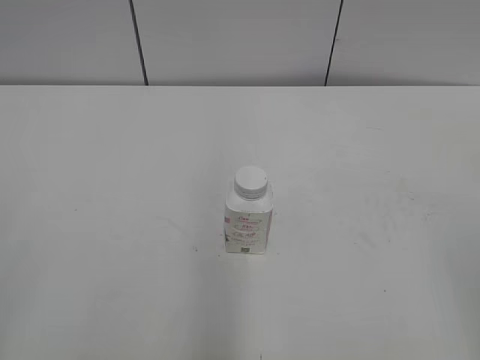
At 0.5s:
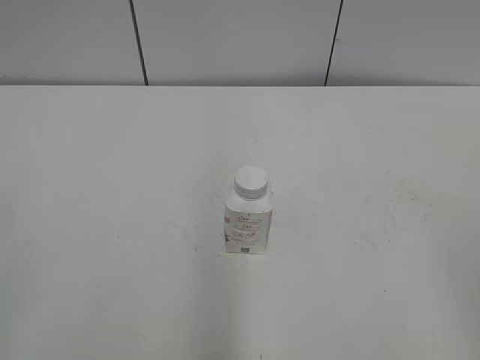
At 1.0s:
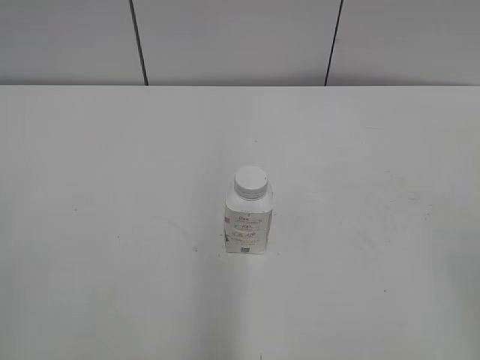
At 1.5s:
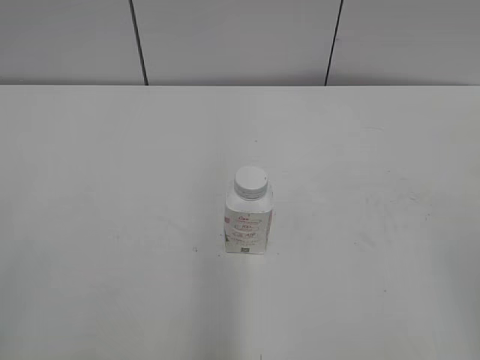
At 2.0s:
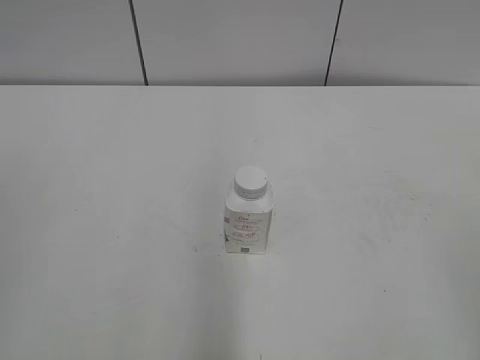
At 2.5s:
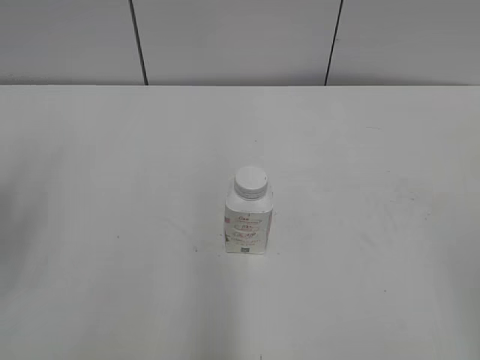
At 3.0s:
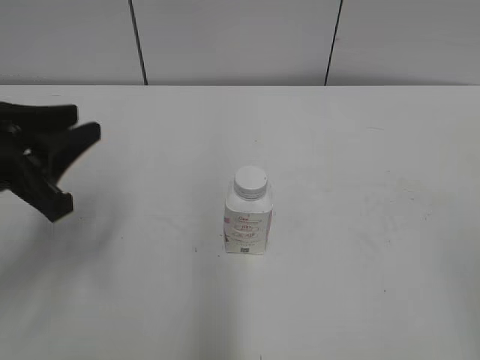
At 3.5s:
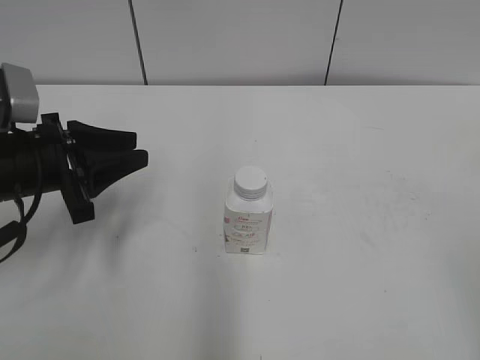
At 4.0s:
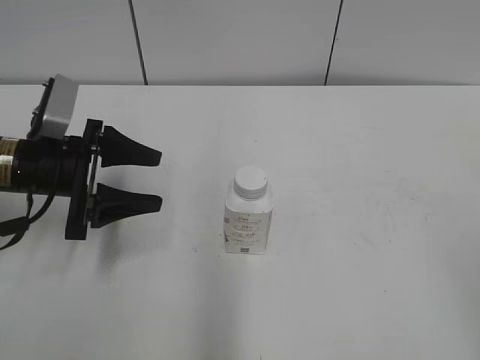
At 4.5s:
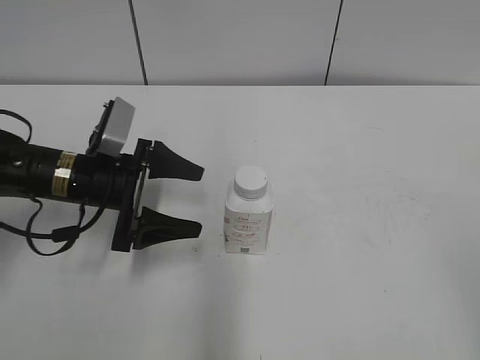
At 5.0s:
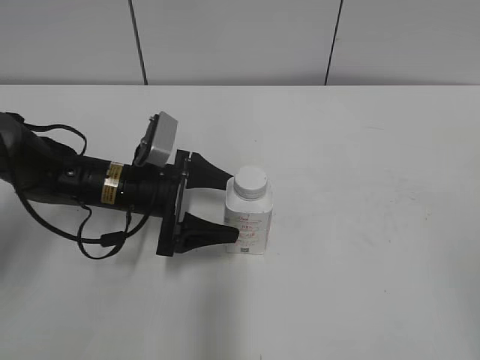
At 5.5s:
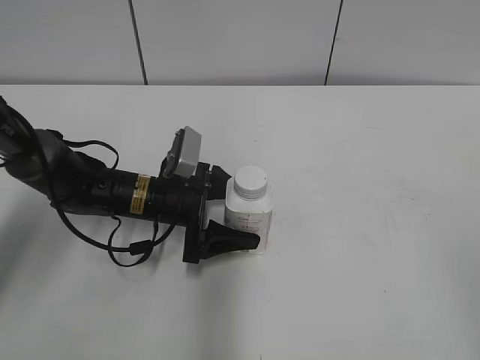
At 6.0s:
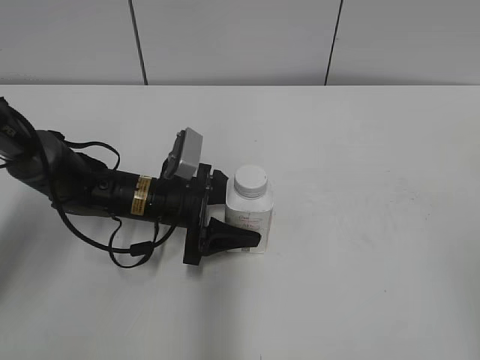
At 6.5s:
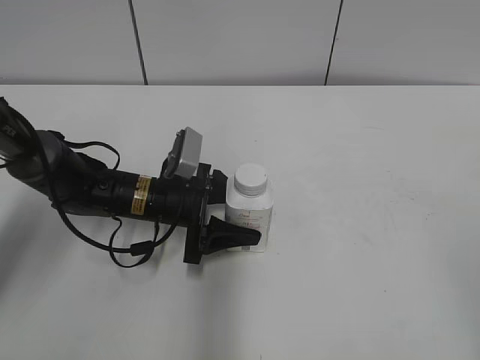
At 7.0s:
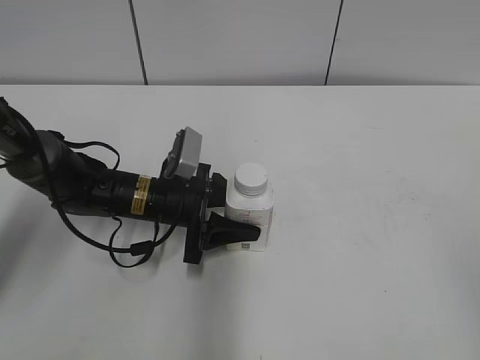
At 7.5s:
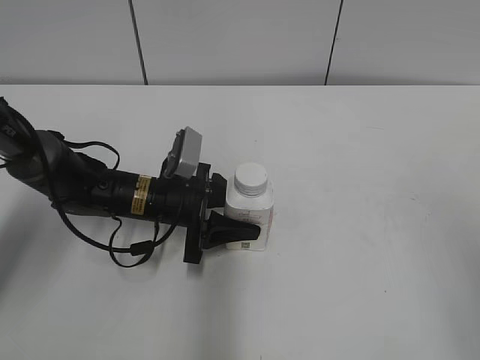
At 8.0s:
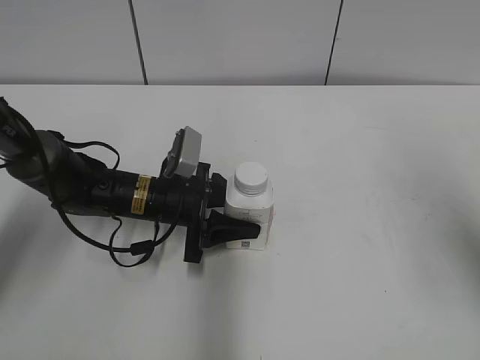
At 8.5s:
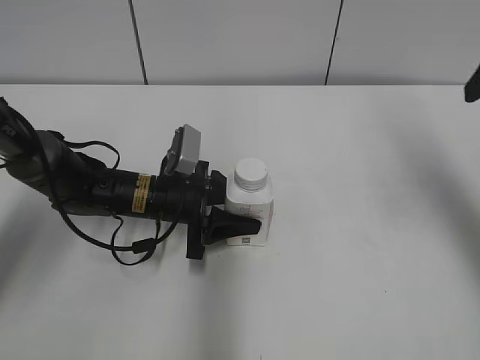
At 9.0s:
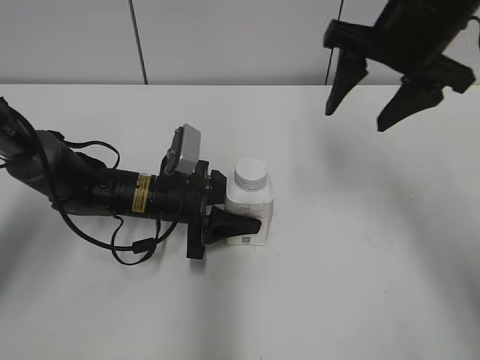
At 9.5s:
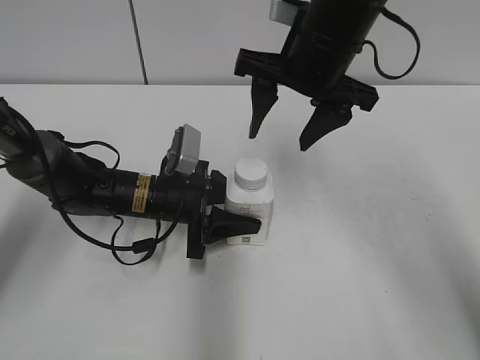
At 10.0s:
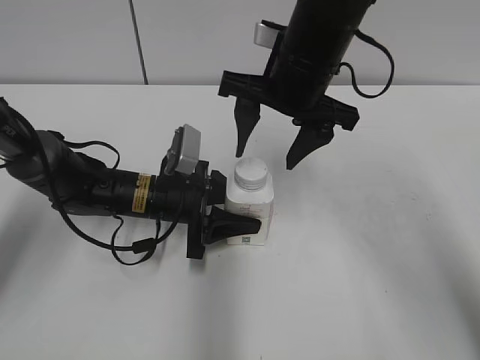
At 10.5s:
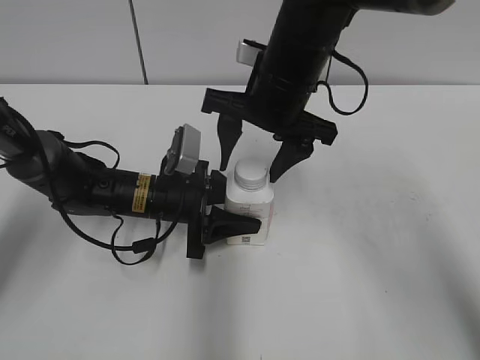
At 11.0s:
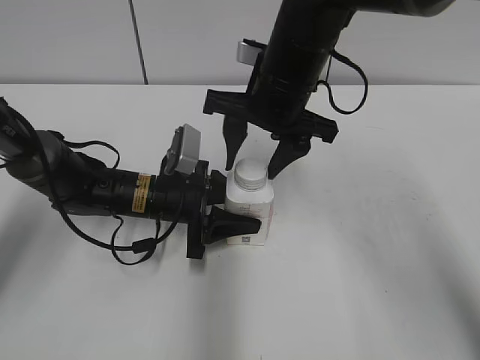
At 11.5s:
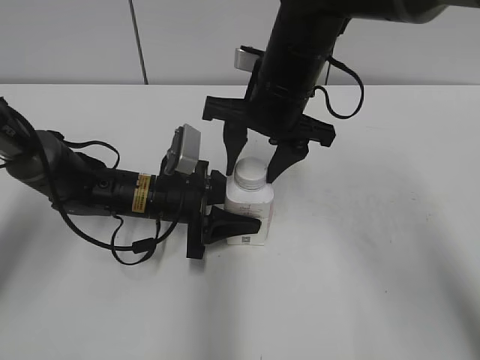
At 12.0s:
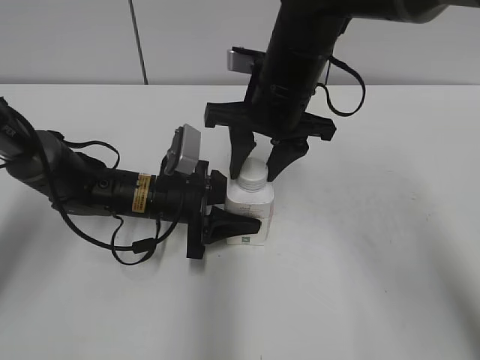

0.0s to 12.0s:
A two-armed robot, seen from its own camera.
Step, 0.0s to 8.0s: Grasp the bottle and move it to the center of the table with the left gripper.
2.0s to 4.0s: The left gripper heads forward and downward, covering some 35 cm, and opens its fingers.
4.0s to 6.0s: The left gripper travels to the right and downward by some 15 cm.
6.0s to 8.0s: The right gripper heads forward, covering about 20 cm.
8.0s to 10.0s: The right gripper moves to the left and forward, approximately 25 cm.
10.0s to 12.0s: The right gripper closes up.

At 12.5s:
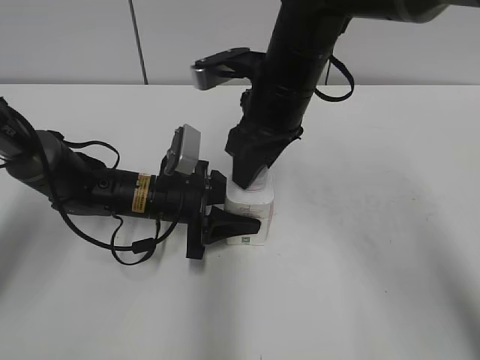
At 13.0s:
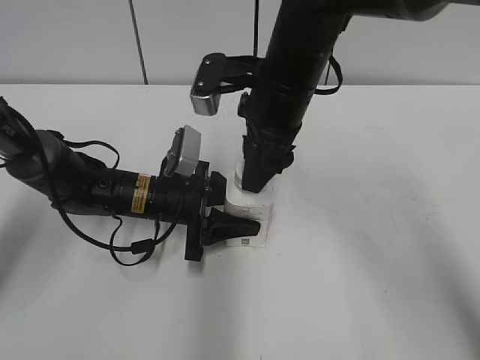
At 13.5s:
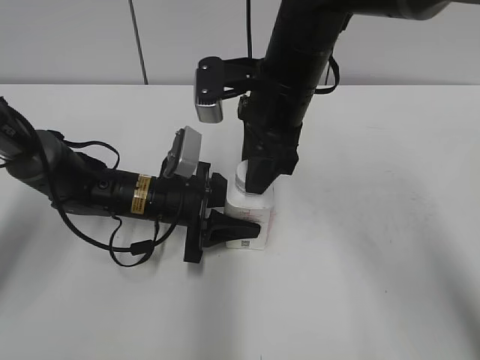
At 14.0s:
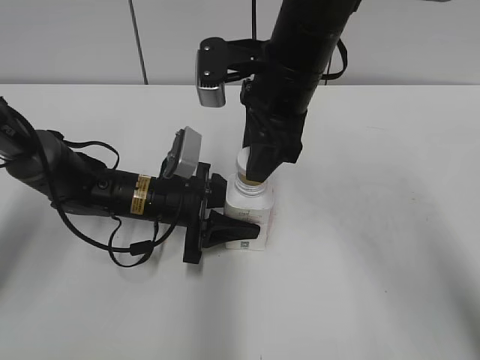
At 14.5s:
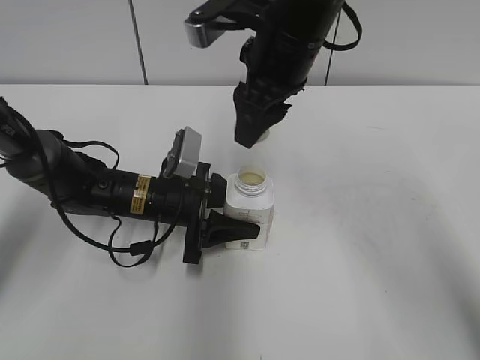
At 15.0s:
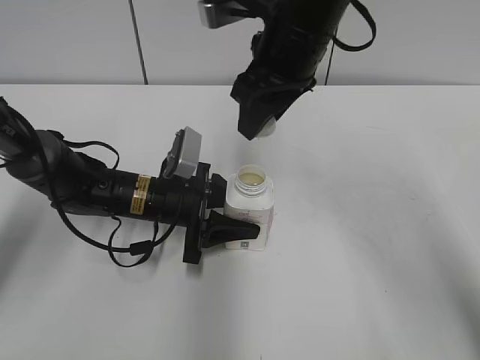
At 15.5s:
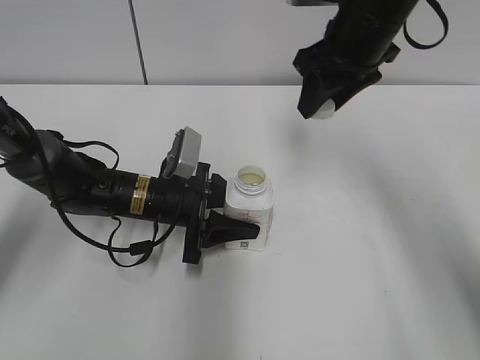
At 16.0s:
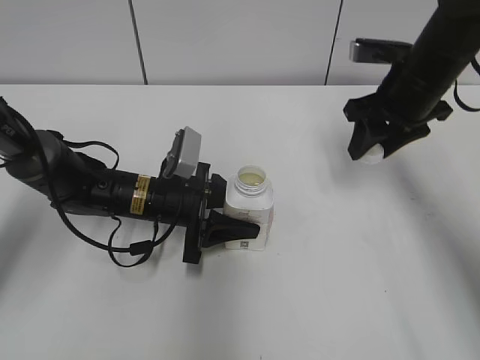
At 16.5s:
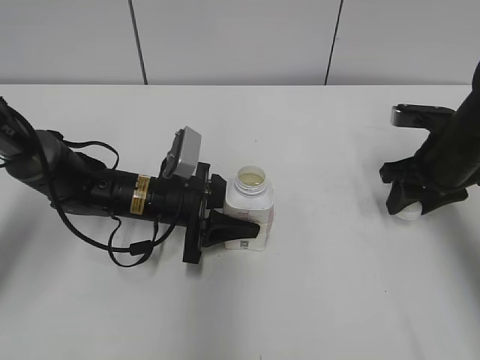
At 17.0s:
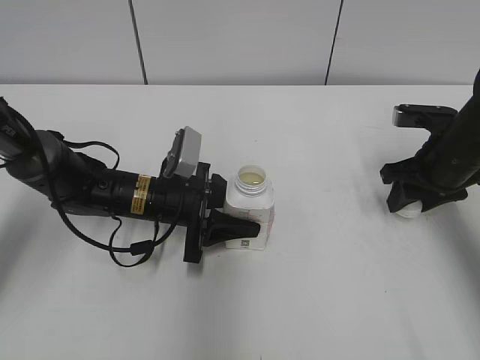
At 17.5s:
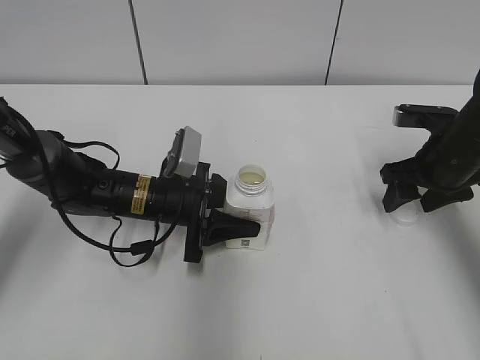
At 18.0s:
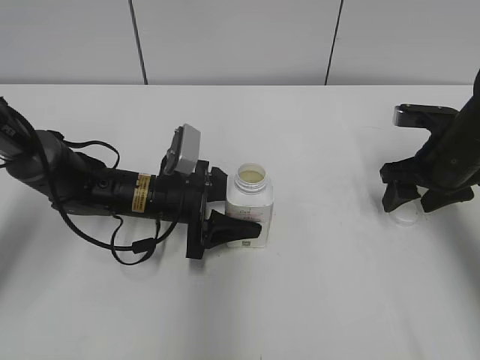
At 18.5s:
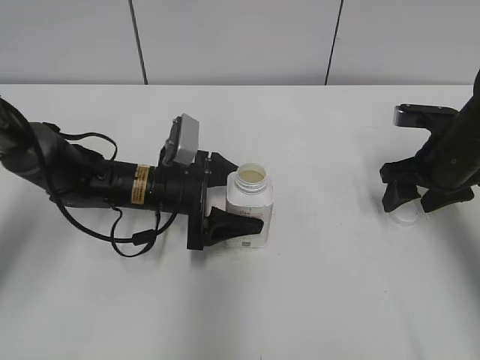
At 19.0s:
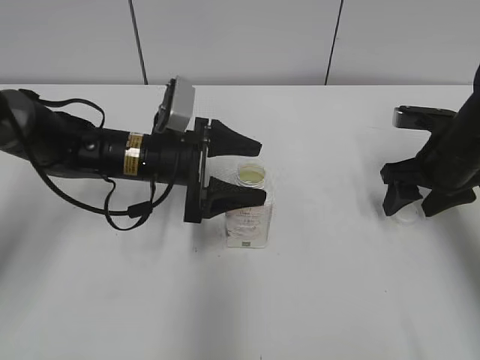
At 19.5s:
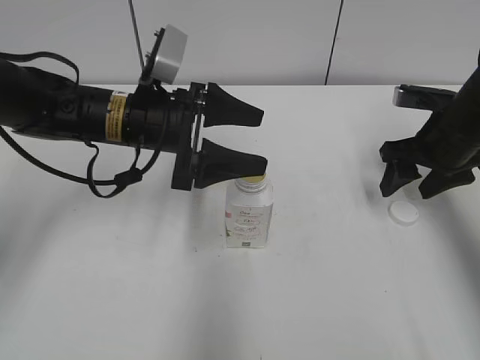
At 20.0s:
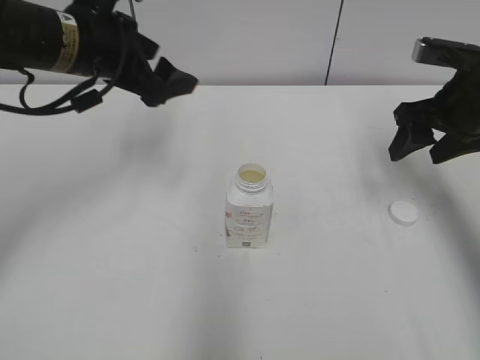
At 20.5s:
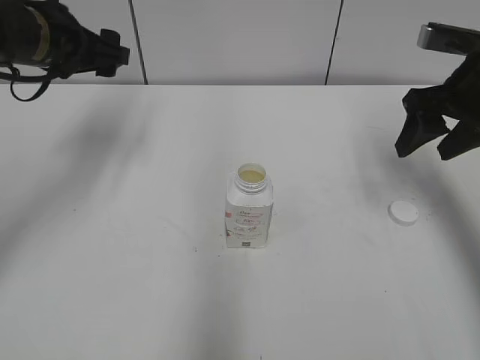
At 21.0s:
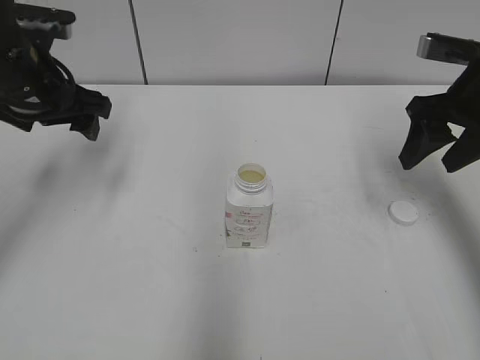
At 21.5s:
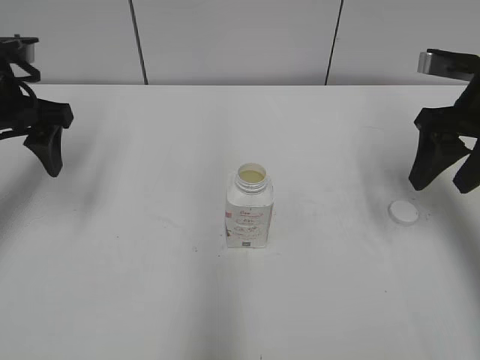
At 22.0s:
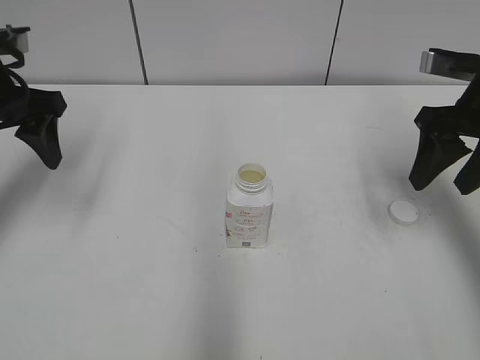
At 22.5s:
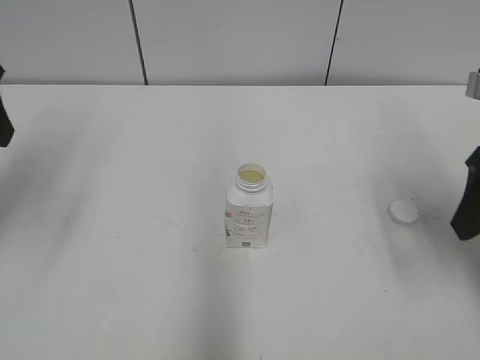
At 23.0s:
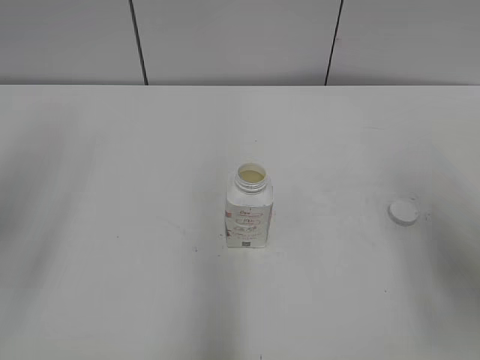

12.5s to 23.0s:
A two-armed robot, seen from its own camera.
Step, 14.5s to 17.0s: Place the bottle cap on the table with the right gripper.
Step, 17.5s to 18.5s: Place the bottle on the table with the left gripper.
14.5s to 16.5s: The right gripper moves to the right and downward, about 25 cm.
16.5s to 19.0s: The right gripper opens up, while the left gripper travels upward by roughly 5 cm, and opens its fingers.
19.0s to 21.0s: The right gripper goes roughly 10 cm upward. Meanwhile the left gripper heads upward and to the left, covering about 20 cm.
21.0s to 23.0s: The left gripper heads backward and upward, covering roughly 20 cm, while the right gripper shifts some 20 cm backward.

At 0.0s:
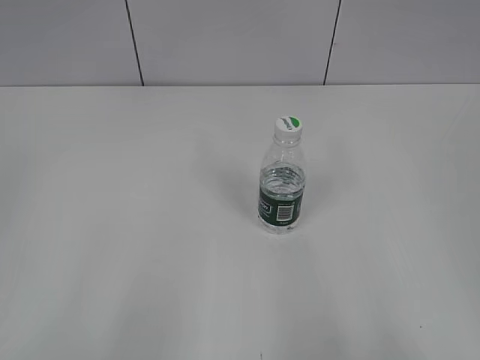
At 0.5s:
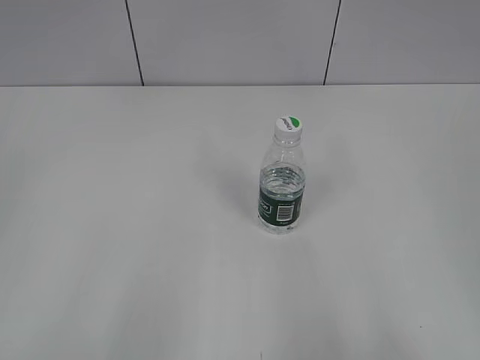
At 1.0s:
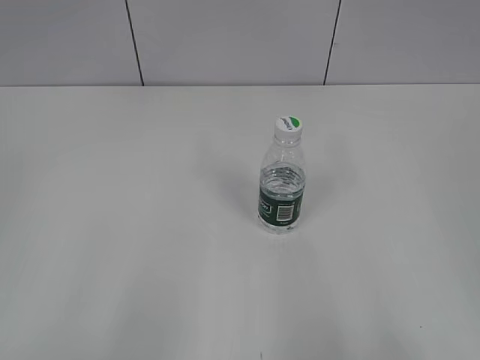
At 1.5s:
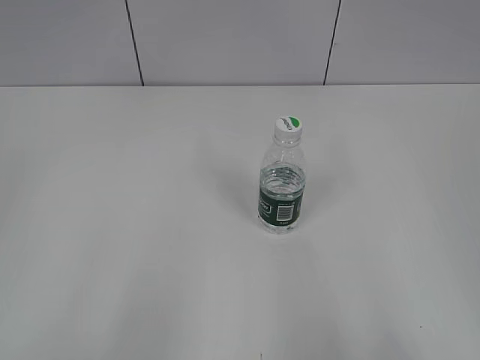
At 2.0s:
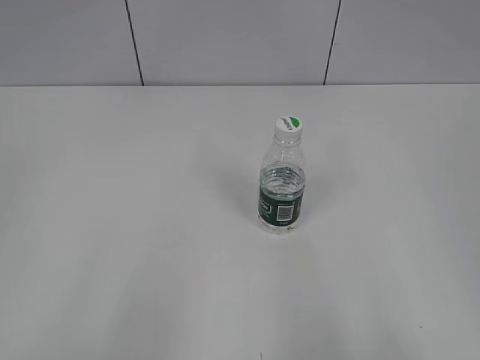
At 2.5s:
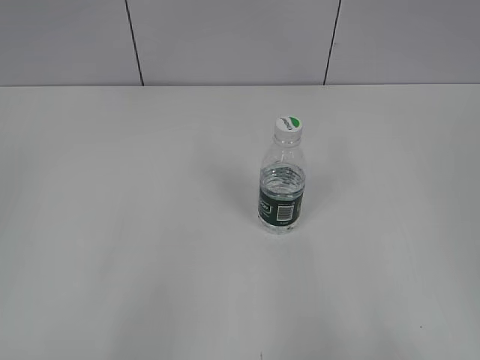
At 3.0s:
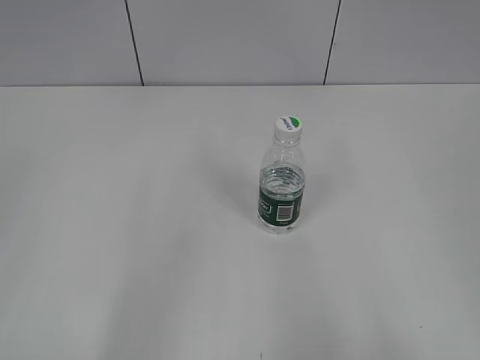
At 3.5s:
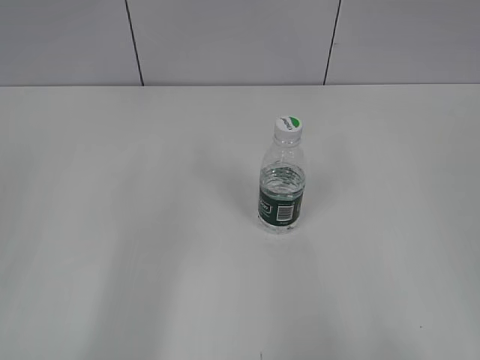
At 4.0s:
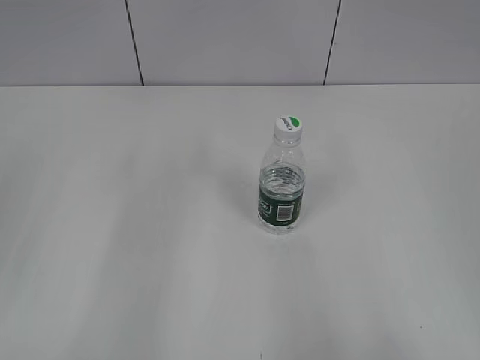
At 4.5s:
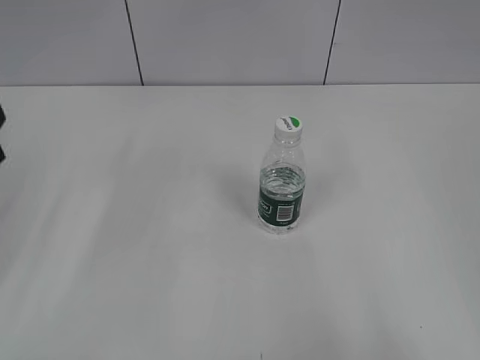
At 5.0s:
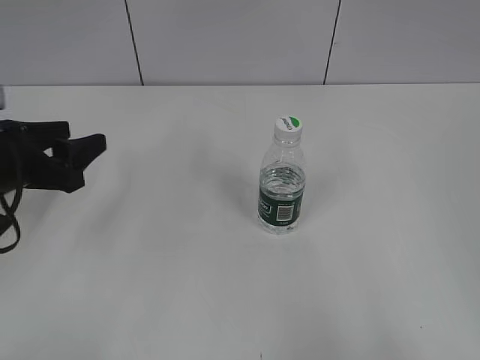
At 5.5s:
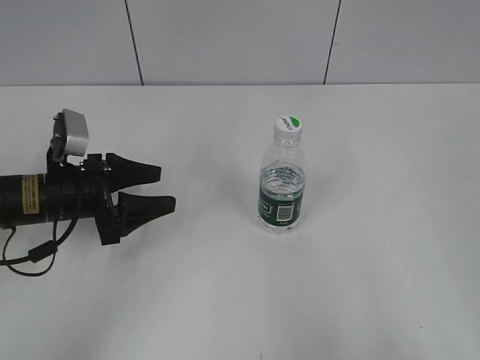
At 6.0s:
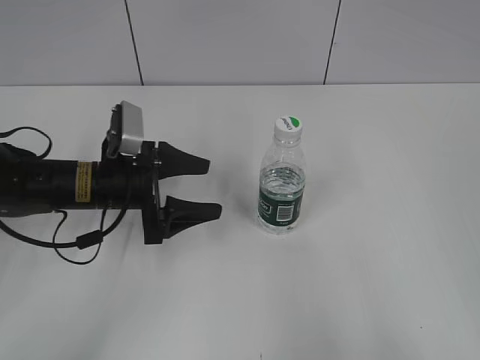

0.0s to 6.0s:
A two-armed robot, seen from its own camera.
4.0s to 6.0s: The left gripper shifts approximately 25 cm forward, downward and to the right, and opens up.
